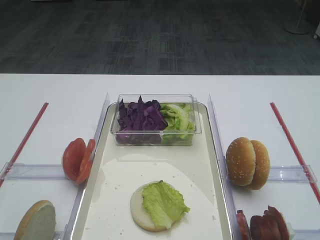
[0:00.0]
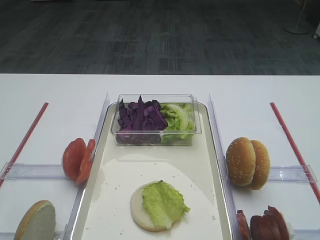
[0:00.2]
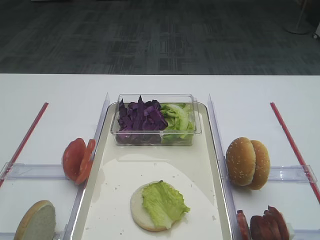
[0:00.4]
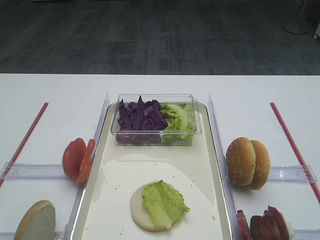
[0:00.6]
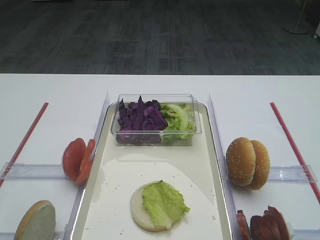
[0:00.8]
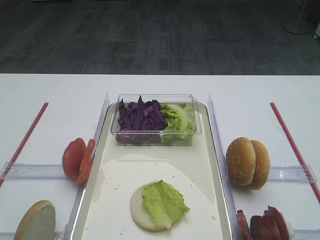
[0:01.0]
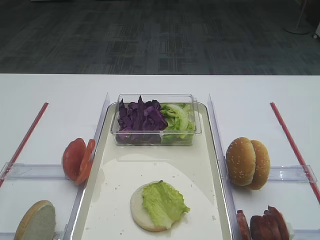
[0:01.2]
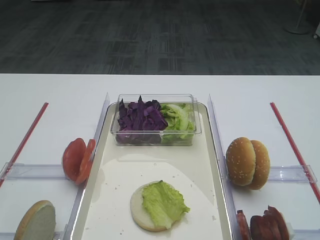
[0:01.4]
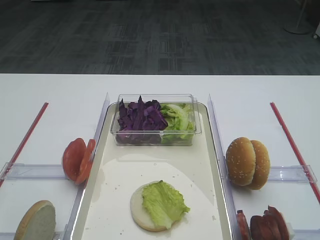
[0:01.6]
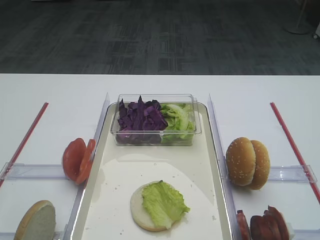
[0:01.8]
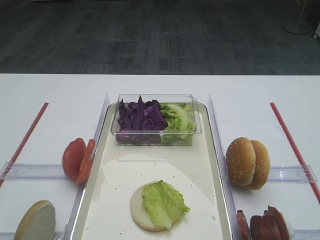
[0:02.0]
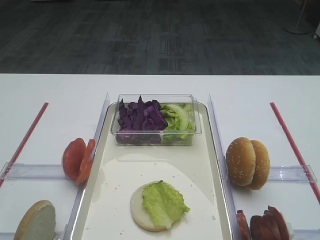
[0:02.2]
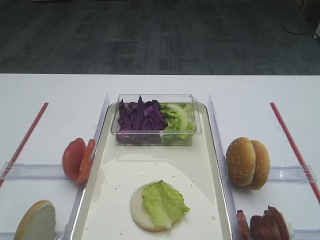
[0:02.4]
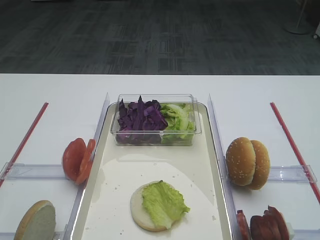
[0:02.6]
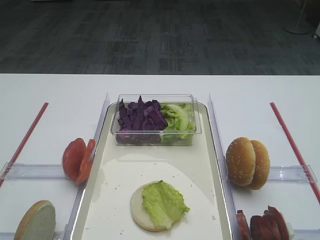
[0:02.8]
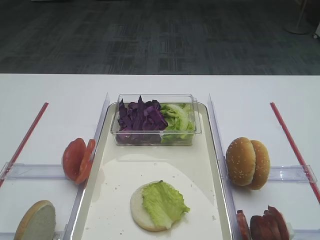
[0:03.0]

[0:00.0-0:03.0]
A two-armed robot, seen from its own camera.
0:00.0 to 0:03.0: The two grippers keep their place.

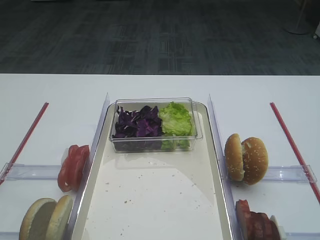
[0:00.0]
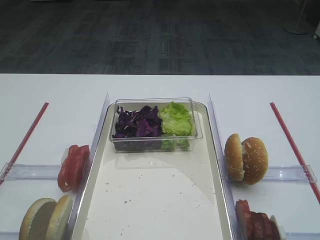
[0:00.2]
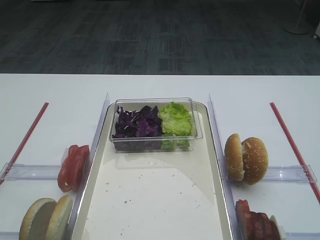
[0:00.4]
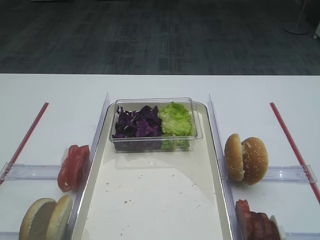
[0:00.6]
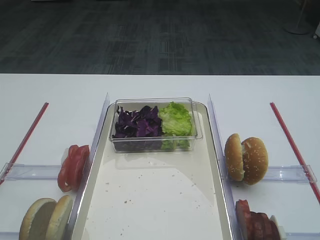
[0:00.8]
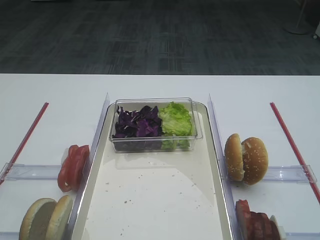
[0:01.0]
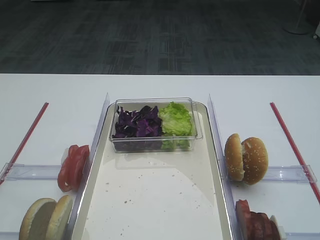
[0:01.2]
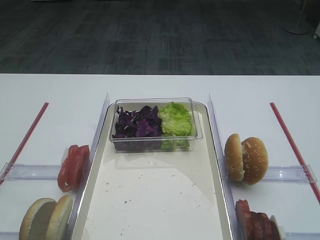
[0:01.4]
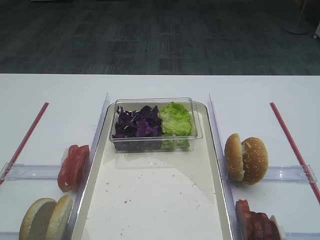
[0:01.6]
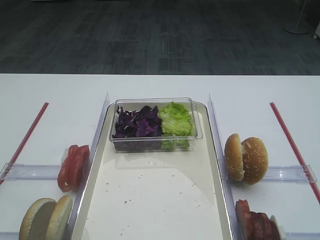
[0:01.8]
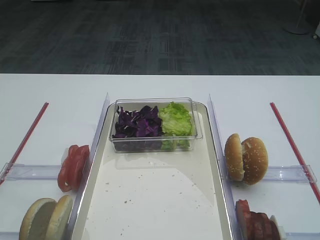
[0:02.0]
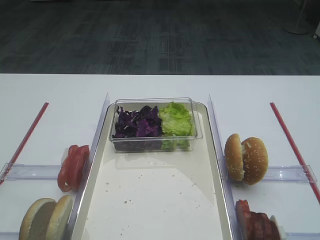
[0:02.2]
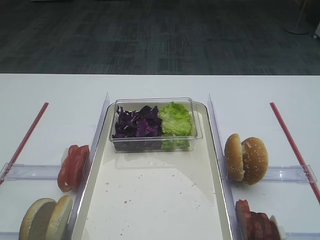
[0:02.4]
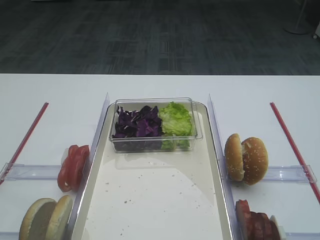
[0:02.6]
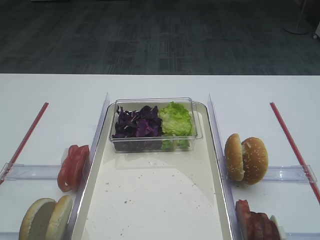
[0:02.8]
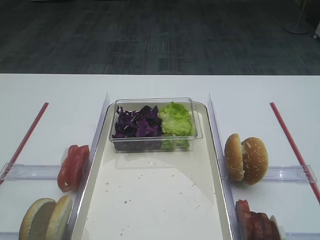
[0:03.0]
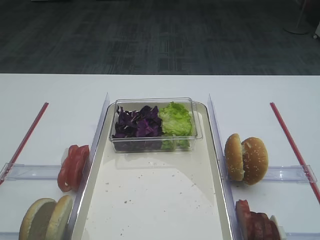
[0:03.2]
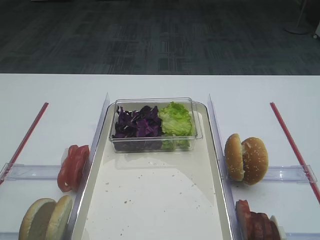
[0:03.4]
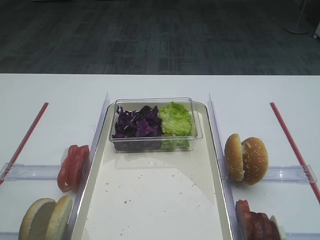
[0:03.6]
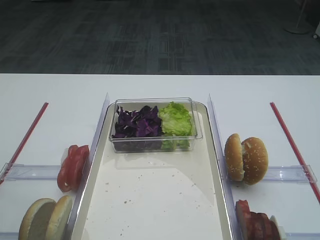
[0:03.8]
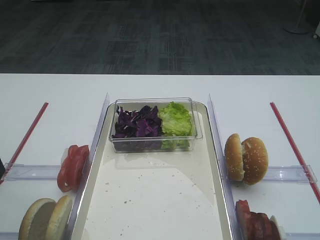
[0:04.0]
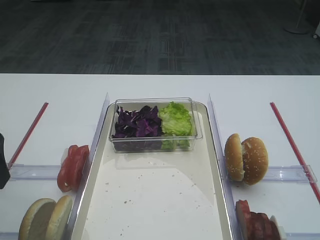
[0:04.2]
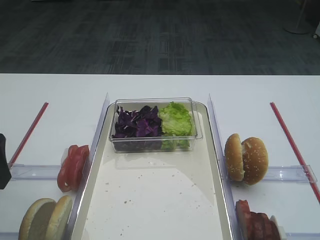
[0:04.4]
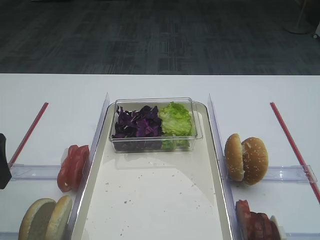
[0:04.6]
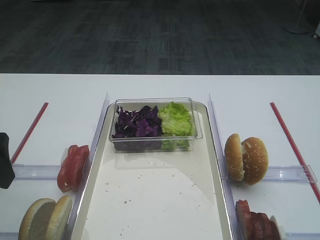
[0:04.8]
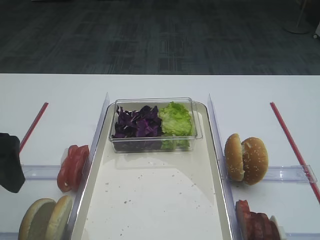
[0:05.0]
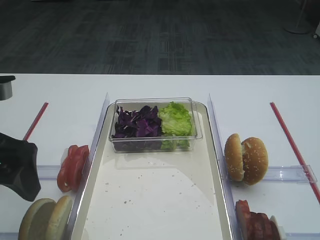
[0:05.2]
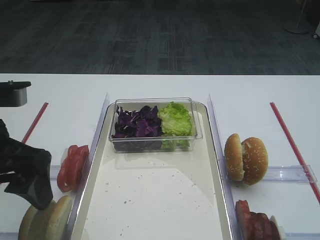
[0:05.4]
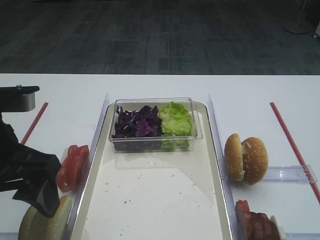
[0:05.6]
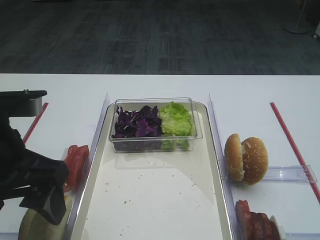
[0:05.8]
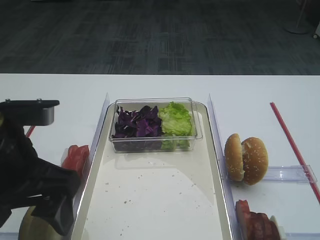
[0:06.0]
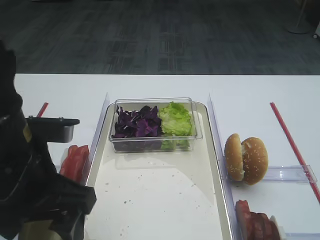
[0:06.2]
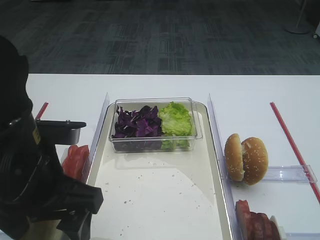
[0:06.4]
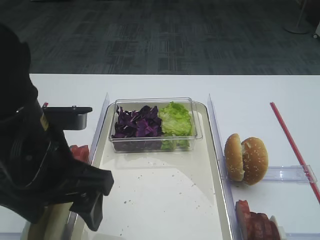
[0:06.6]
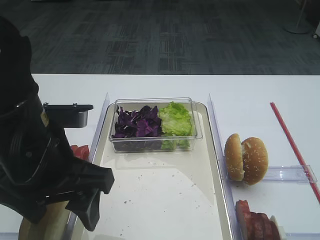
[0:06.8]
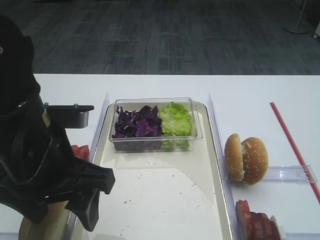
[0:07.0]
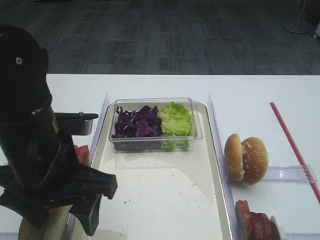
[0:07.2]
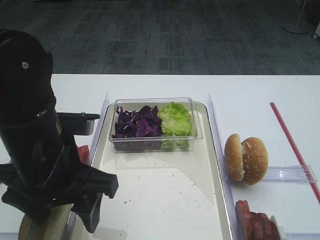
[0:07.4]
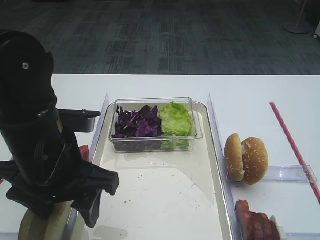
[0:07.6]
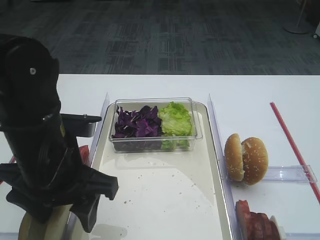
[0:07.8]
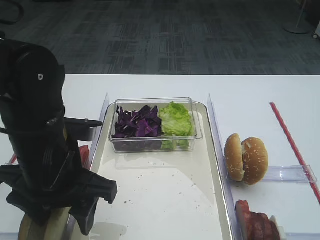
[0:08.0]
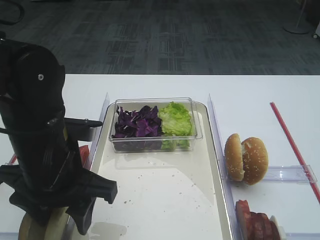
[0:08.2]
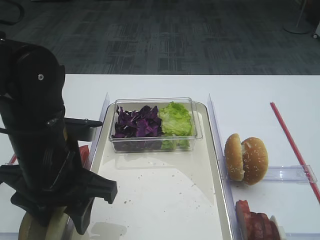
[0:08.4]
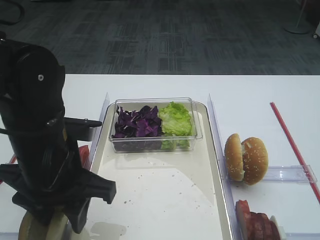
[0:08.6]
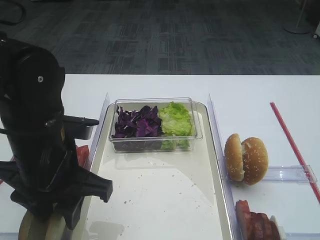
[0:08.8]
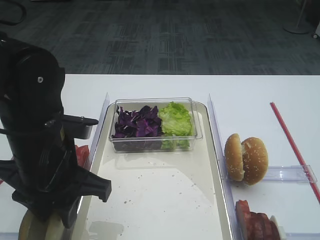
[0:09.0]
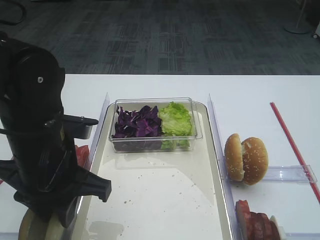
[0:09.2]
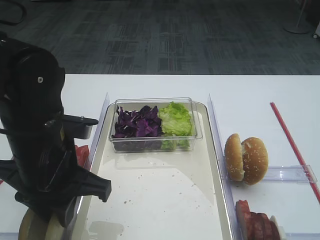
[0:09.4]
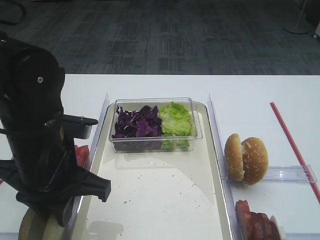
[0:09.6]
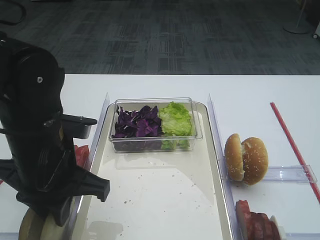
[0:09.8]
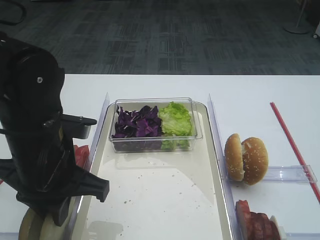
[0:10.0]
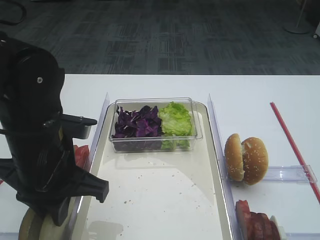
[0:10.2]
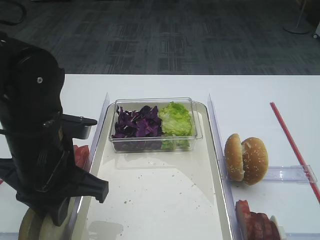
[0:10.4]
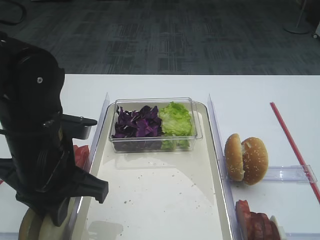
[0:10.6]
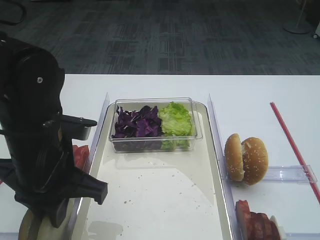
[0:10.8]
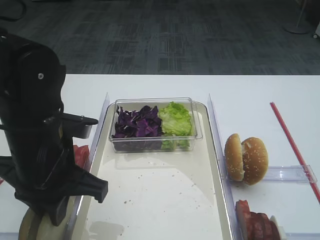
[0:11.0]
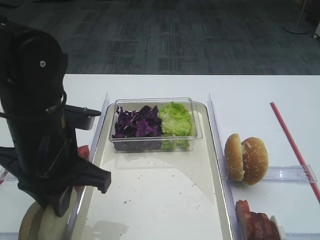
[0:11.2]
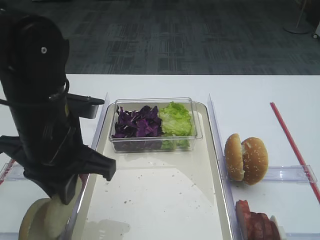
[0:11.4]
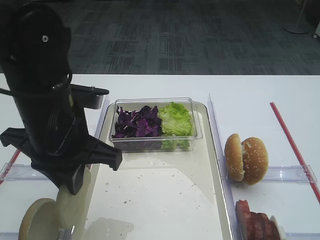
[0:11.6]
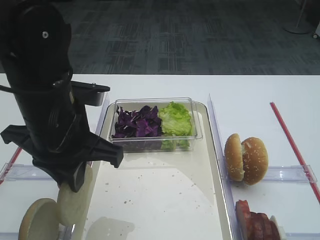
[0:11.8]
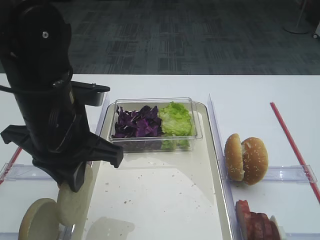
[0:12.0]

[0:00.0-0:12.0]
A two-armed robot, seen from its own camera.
Step, 0:00.0 to 0:11.8: Pick up the bread slice with the left gripper.
0:03.0 to 0:04.4: The left gripper goes about 15 cm forward.
0:04.4 to 0:06.0: The left gripper is displaced to the right by some 10 cm.
0:06.0 to 0:07.6: The left gripper changes place by some 5 cm.
0:07.6 to 0:09.0: The left gripper closes its fingers.
0:09.0 to 0:10.4: Neither gripper changes place.
0:10.4 to 0:12.0: There are only small adjustments of the grippers.

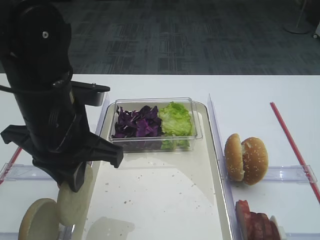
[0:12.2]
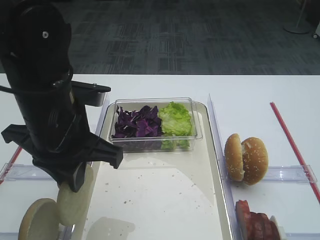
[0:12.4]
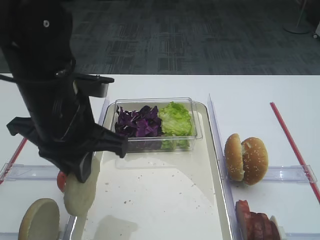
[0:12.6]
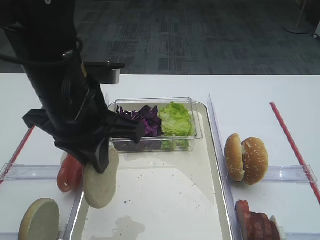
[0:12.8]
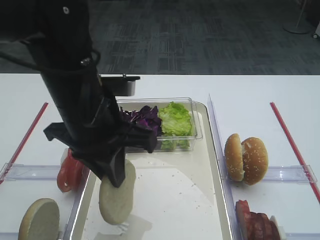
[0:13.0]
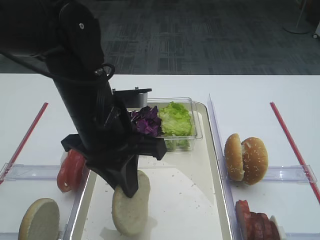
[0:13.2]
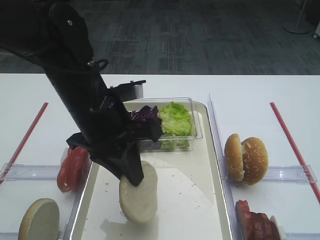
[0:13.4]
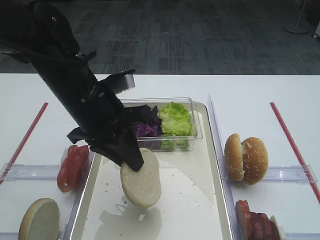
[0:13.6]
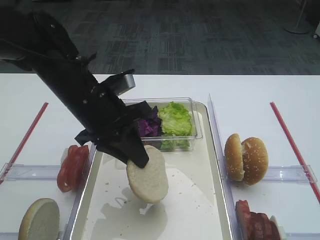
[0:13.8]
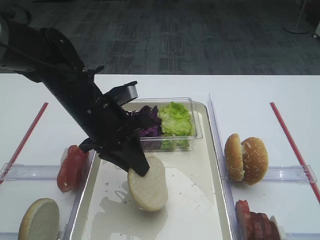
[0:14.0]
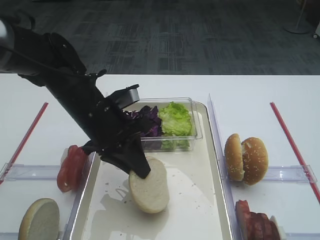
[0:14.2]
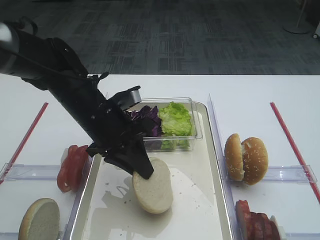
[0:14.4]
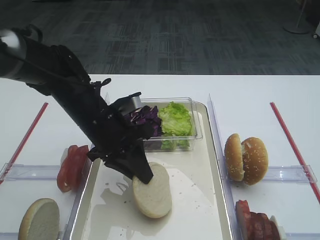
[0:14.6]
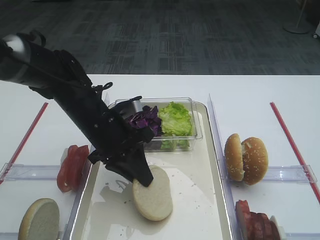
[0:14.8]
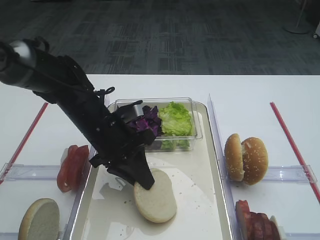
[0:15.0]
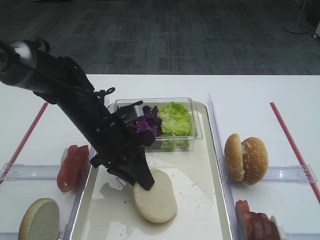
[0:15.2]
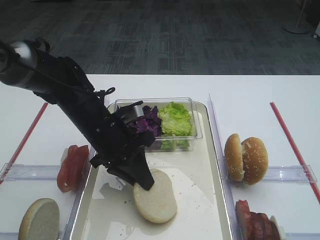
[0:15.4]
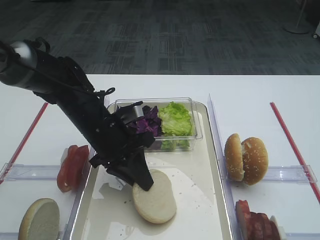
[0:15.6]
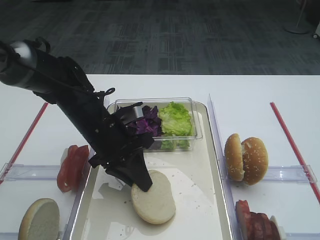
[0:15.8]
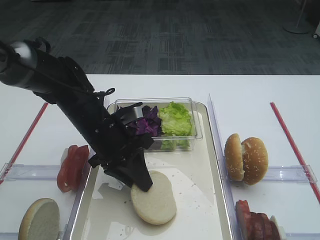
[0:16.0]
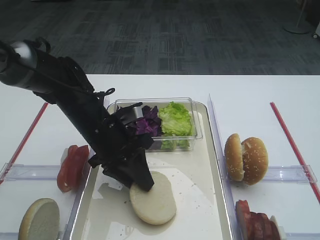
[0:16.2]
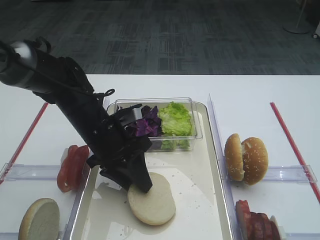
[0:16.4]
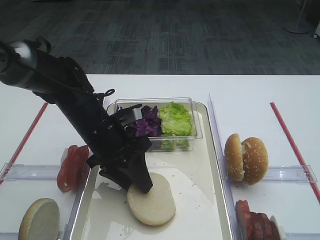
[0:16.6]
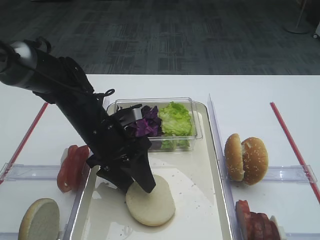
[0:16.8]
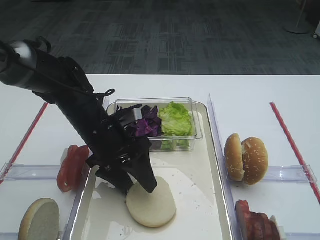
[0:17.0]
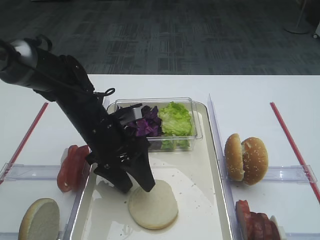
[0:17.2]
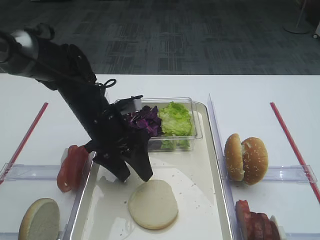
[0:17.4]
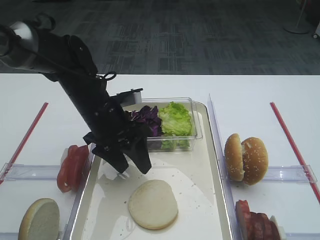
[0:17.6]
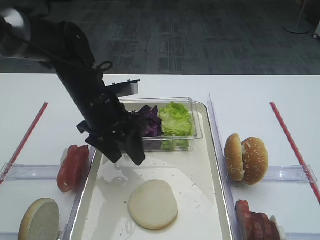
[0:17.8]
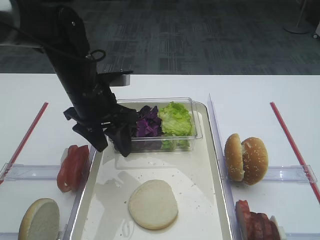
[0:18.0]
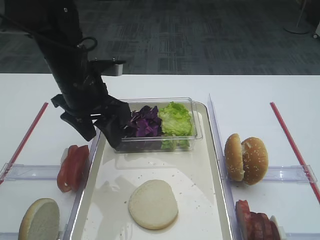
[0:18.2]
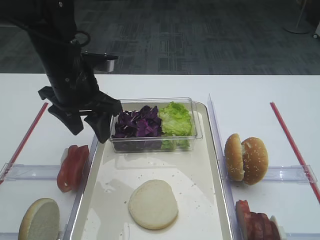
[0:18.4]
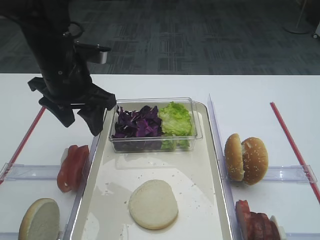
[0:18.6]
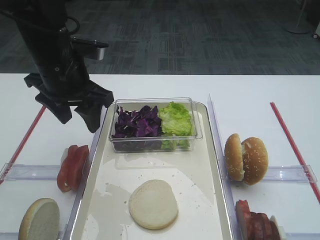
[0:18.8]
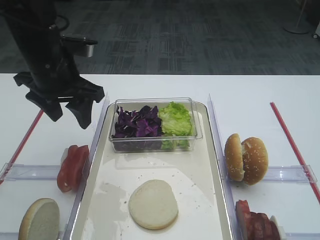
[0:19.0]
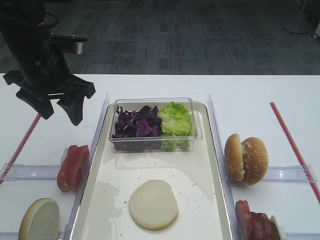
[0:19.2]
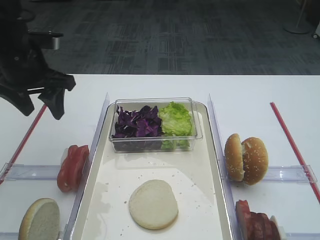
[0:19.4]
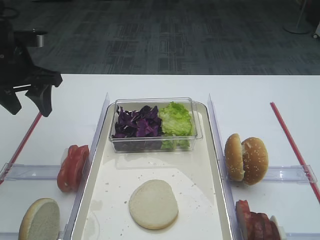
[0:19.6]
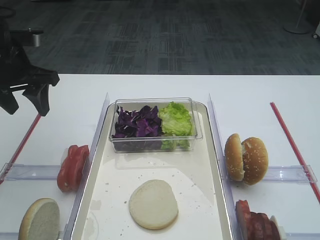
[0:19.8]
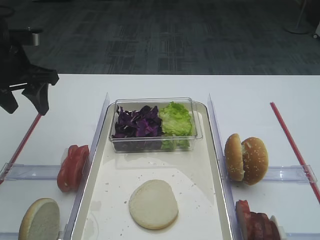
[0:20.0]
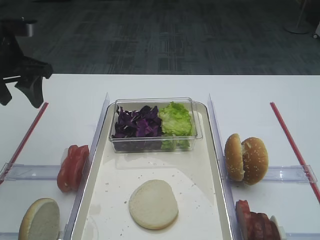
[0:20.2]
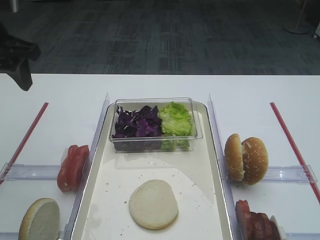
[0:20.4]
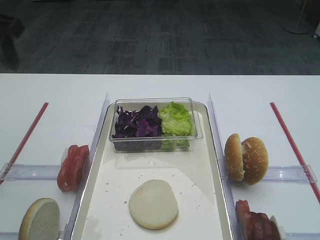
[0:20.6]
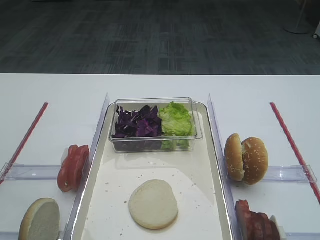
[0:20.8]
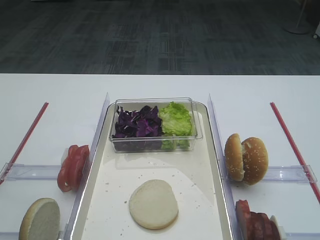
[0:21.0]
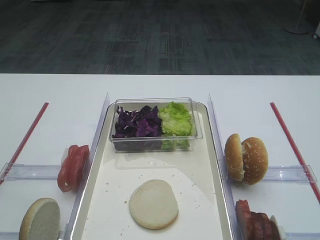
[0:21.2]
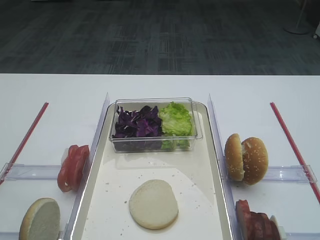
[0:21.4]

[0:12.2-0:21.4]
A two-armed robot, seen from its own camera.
Step, 0:12.2 to 0:17.8: Place the bread slice on the tray with the left gripper.
0:12.2 to 0:13.8: The left gripper heads forward, covering some 5 cm.
0:13.8 to 0:15.2: The left gripper goes roughly 5 cm downward.
0:15.2 to 0:16.8: The left gripper opens up.
0:16.8 to 0:18.4: The left gripper travels upward by approximately 10 cm.
0:18.4 to 0:19.8: The left gripper is displaced to the left by some 10 cm.
0:19.8 to 0:21.4: The left gripper is displaced backward and upward by about 30 cm.
